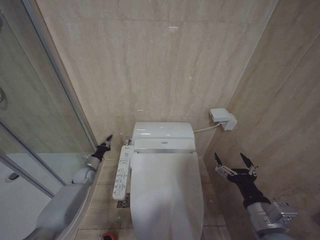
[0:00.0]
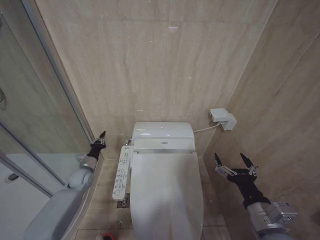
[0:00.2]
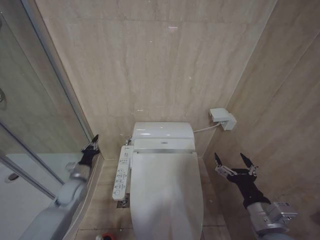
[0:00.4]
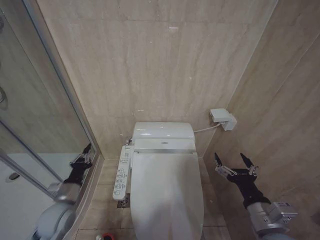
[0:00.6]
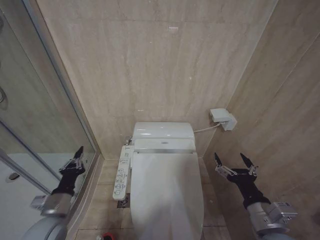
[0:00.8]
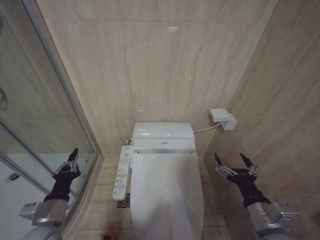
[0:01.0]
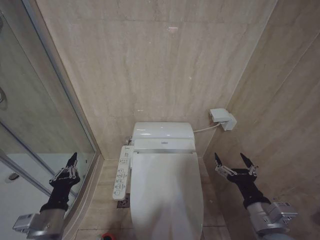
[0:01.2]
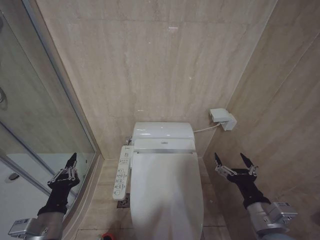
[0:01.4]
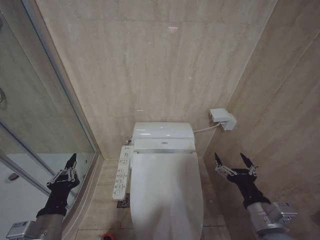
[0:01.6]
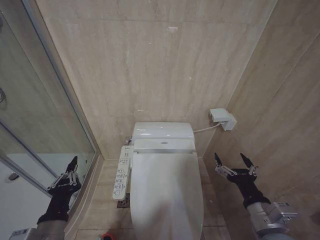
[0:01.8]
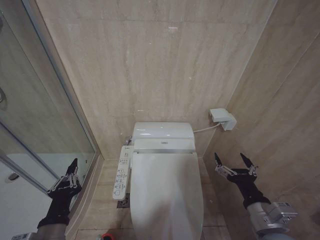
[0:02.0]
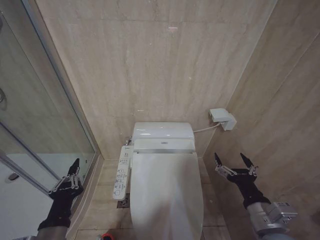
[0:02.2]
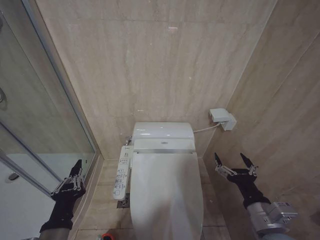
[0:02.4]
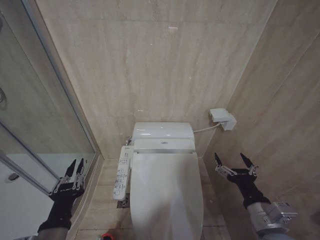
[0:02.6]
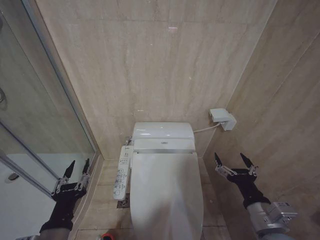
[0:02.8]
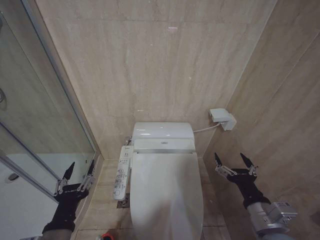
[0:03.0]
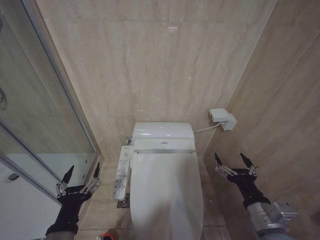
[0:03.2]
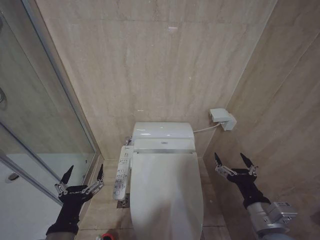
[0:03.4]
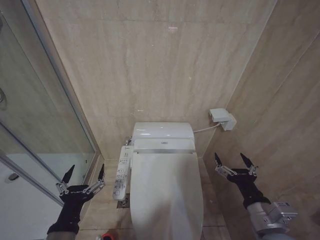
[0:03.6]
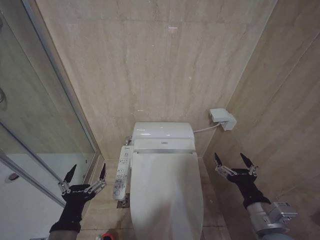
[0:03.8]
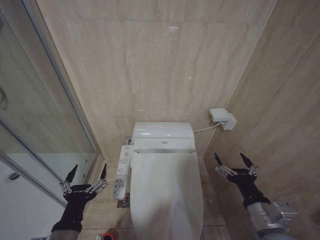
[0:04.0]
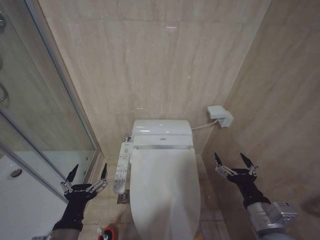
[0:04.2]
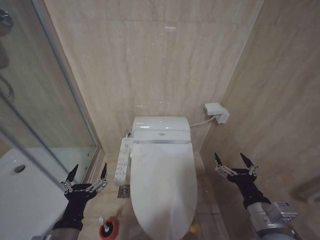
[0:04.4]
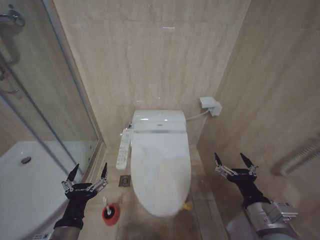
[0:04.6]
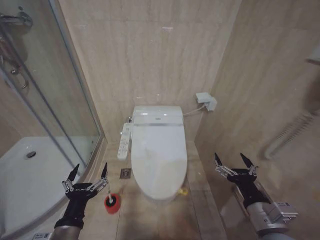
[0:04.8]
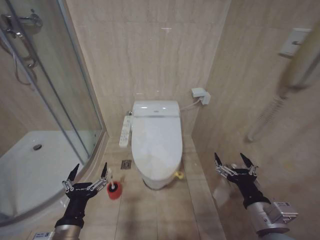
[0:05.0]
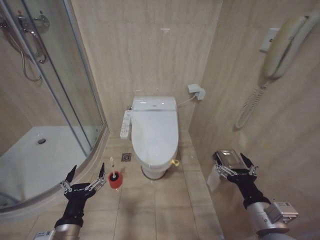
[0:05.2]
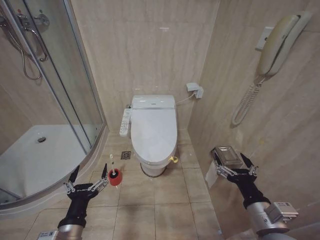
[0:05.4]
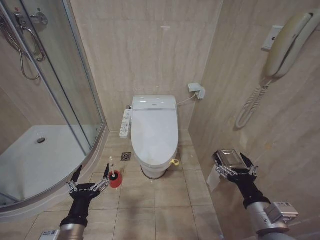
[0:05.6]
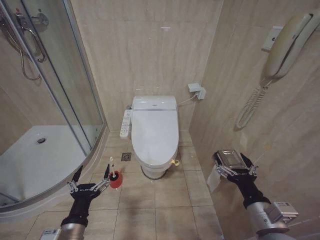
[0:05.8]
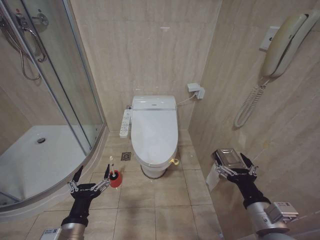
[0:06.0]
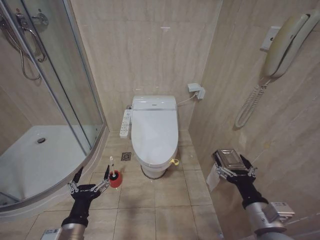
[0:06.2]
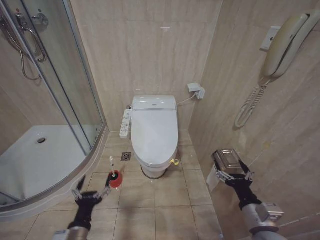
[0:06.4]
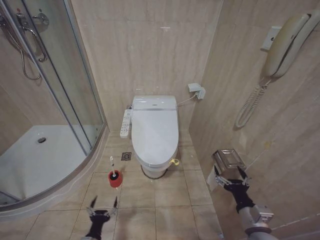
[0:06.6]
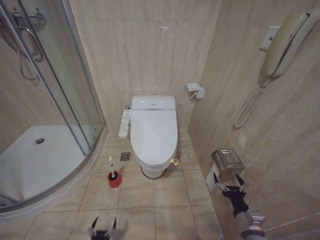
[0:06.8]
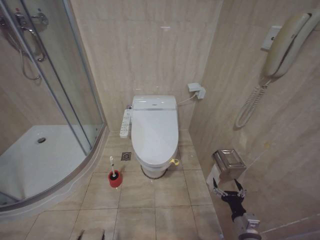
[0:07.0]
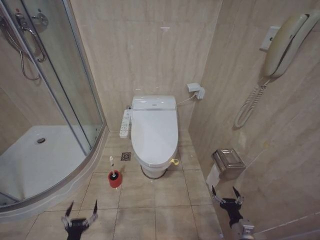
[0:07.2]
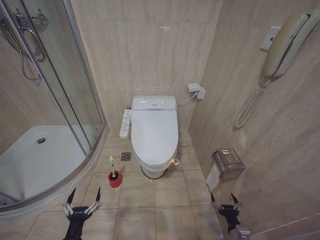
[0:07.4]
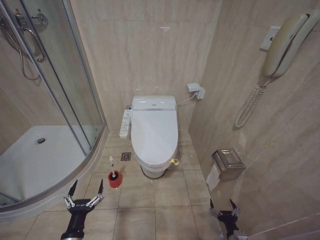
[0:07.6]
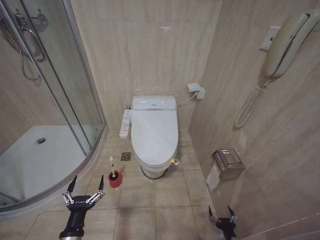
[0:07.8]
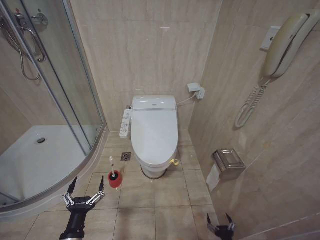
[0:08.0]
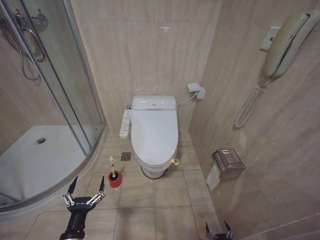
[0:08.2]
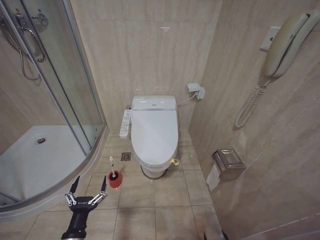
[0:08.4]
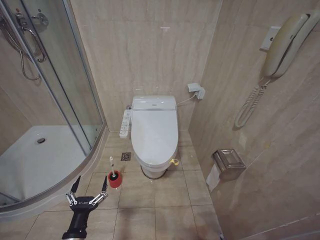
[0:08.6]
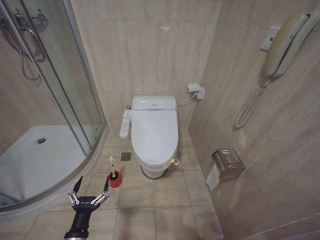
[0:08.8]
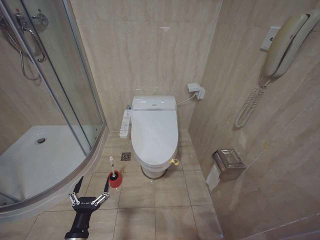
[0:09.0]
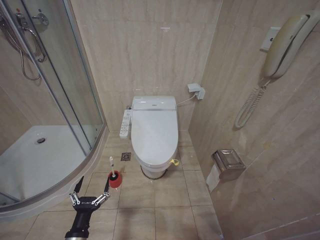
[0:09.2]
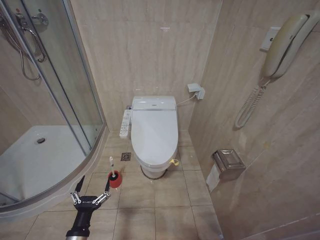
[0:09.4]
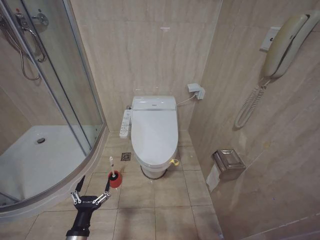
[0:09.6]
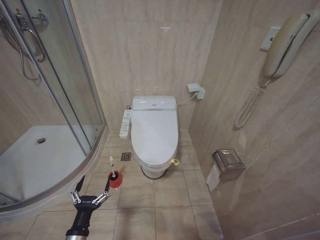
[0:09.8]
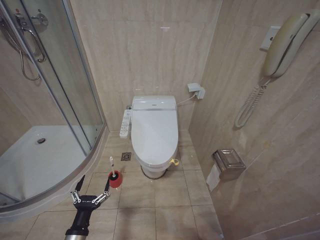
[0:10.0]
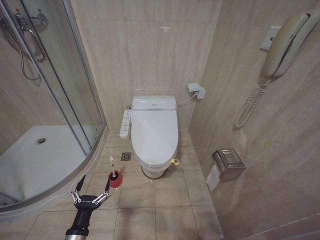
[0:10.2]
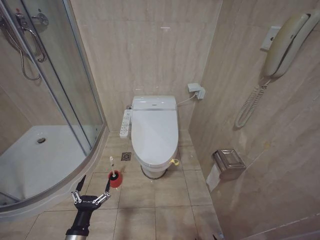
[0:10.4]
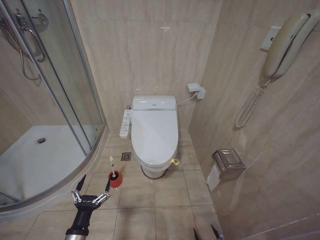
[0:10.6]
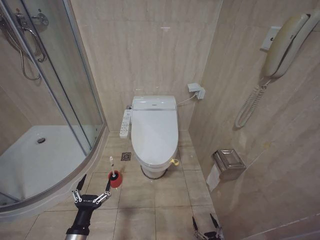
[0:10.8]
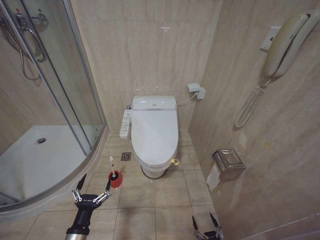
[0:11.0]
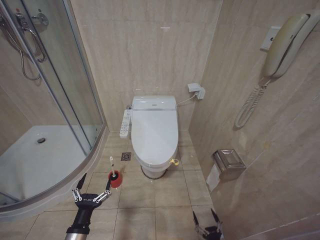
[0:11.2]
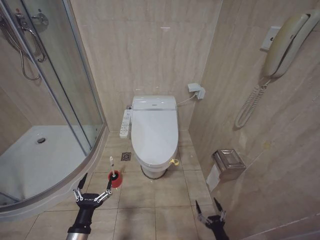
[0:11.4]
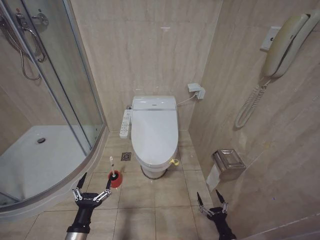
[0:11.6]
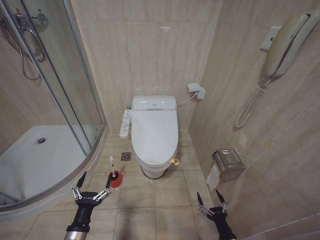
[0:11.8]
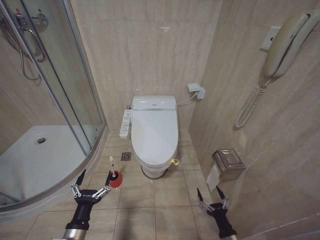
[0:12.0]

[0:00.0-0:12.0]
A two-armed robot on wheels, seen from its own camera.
Task of the whole recording: Open the toilet lid, clean the toilet bowl with a toilet brush, close the toilet lid, and flush.
0:00.0 to 0:01.6: The left gripper goes approximately 40 cm backward and upward.
0:01.6 to 0:03.0: The left gripper moves approximately 5 cm, and opens.
0:03.0 to 0:04.4: The left gripper opens up.
0:06.0 to 0:07.6: The left gripper goes about 15 cm downward, while the right gripper moves downward, roughly 30 cm.
0:07.6 to 0:09.0: The left gripper changes place by approximately 5 cm. The right gripper goes about 25 cm downward and backward.
0:10.4 to 0:12.0: The right gripper travels upward and forward by approximately 20 cm.

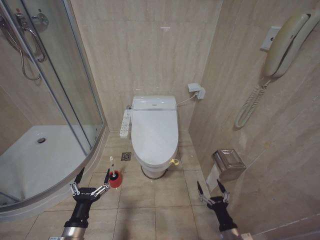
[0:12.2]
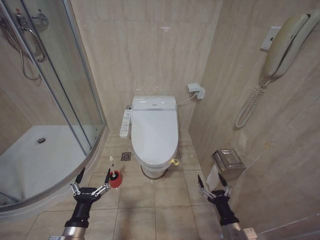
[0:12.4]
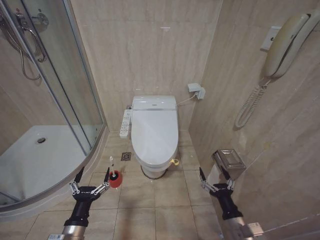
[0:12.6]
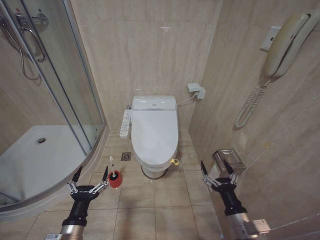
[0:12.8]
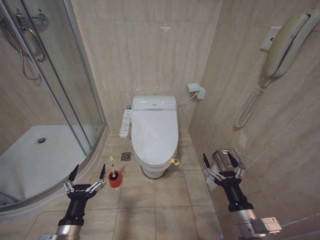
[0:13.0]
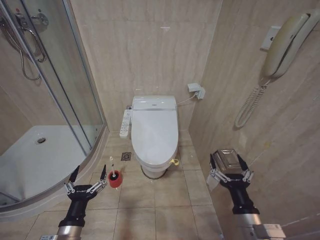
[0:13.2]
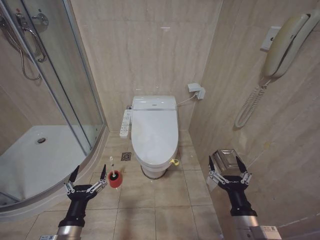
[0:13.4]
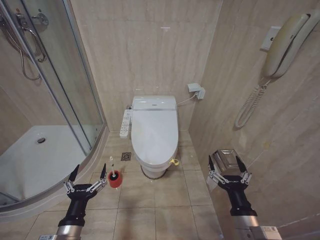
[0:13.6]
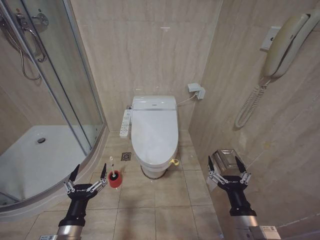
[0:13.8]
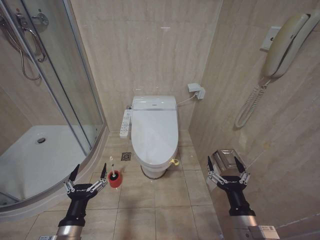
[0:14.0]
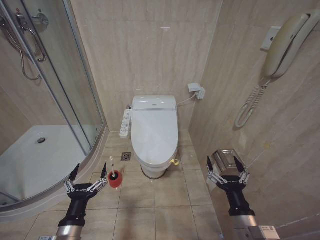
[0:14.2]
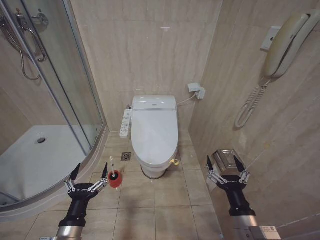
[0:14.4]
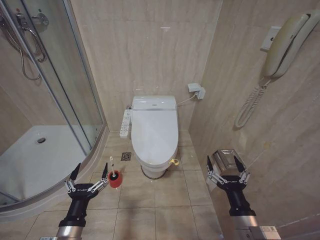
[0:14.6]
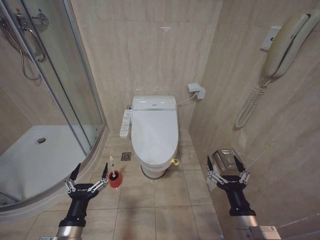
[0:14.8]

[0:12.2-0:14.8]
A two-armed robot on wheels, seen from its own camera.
Task of the whole recording: Open the toilet lid, clean the toilet bowl with a toilet brush, close the toilet lid, and flush.
0:12.2 to 0:13.4: The right gripper heads upward, covering about 20 cm.
0:13.4 to 0:14.8: Neither gripper changes place.

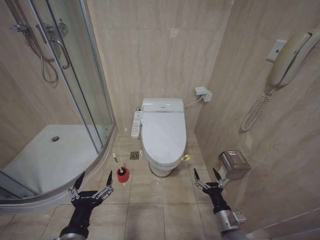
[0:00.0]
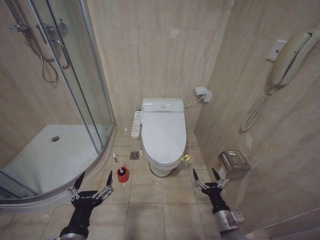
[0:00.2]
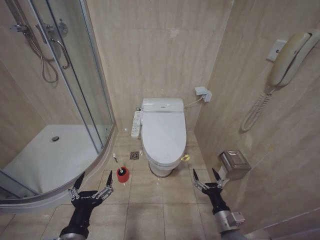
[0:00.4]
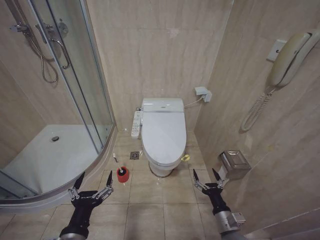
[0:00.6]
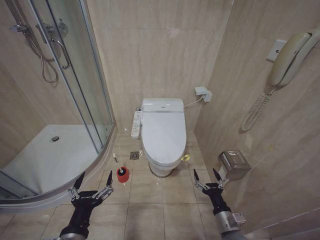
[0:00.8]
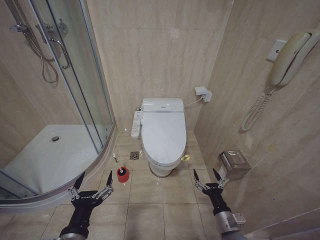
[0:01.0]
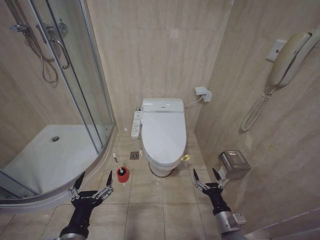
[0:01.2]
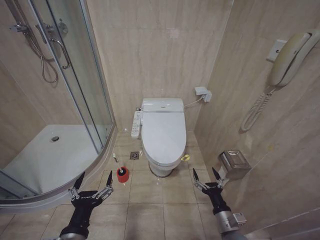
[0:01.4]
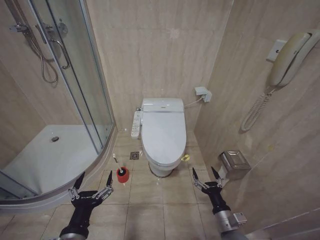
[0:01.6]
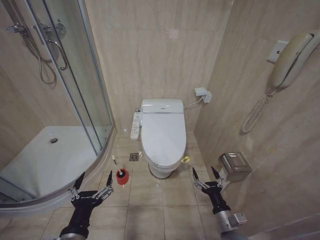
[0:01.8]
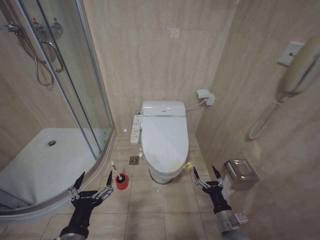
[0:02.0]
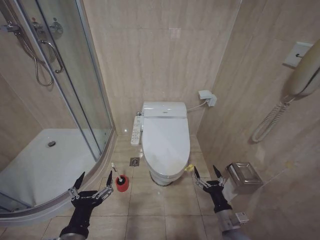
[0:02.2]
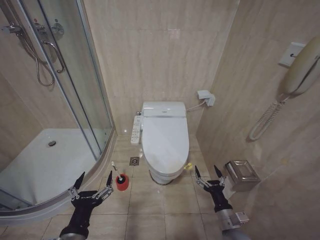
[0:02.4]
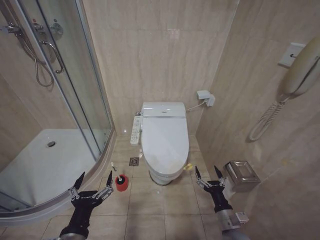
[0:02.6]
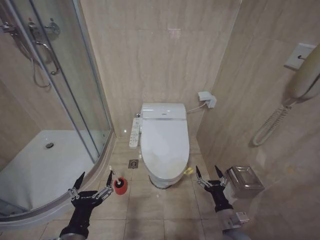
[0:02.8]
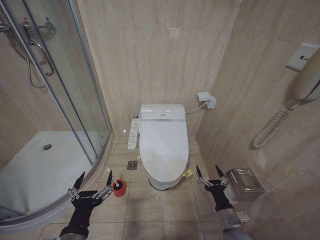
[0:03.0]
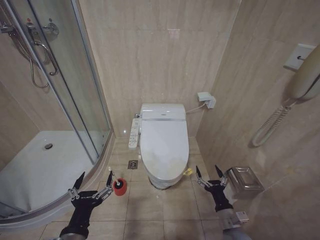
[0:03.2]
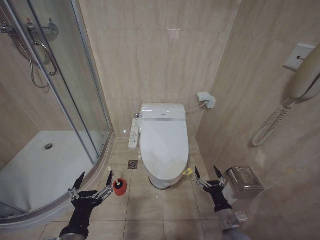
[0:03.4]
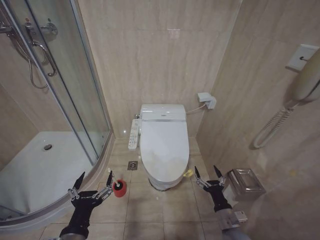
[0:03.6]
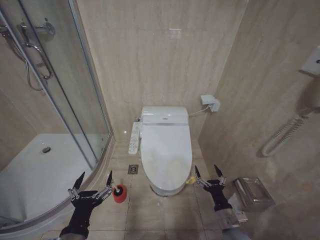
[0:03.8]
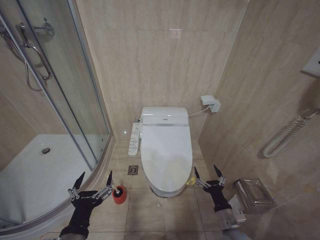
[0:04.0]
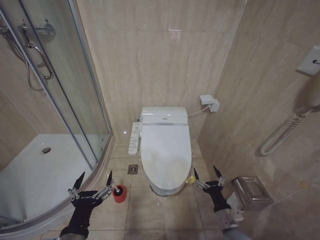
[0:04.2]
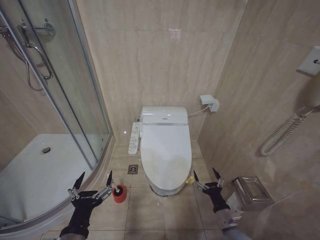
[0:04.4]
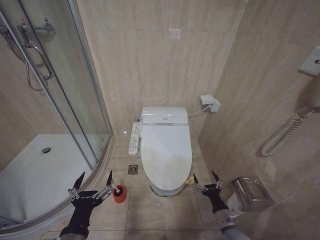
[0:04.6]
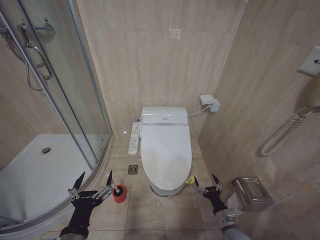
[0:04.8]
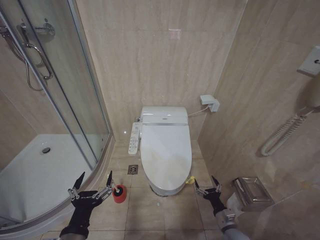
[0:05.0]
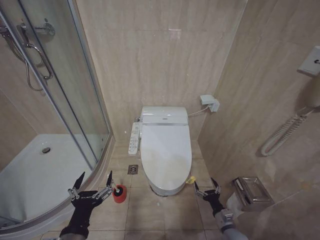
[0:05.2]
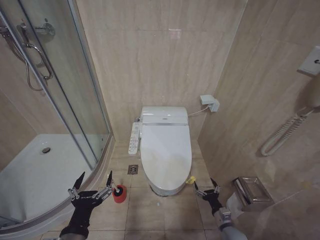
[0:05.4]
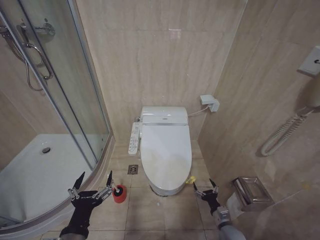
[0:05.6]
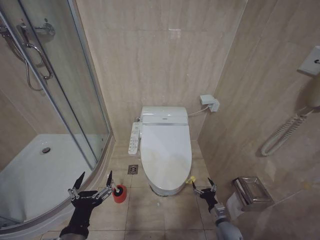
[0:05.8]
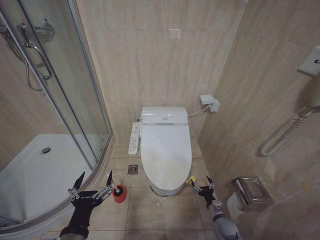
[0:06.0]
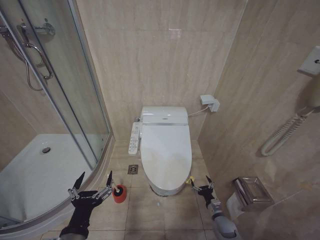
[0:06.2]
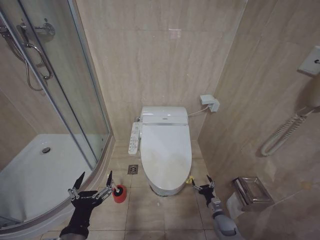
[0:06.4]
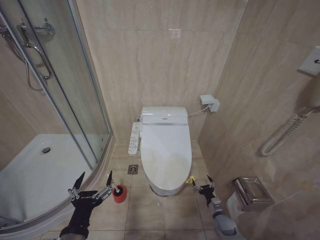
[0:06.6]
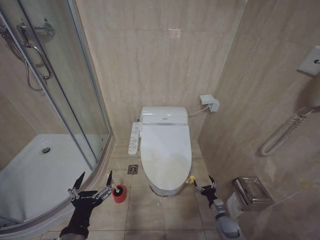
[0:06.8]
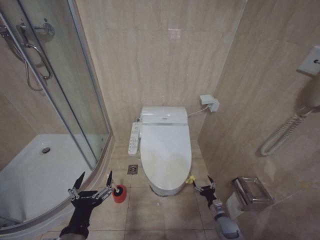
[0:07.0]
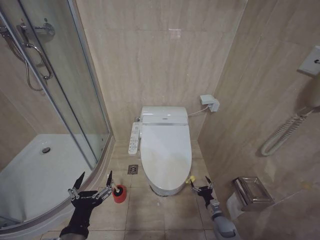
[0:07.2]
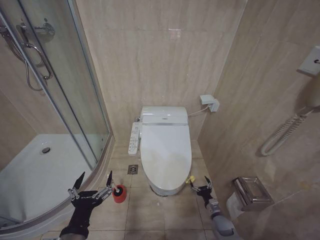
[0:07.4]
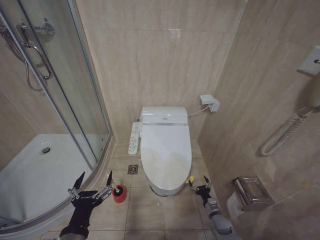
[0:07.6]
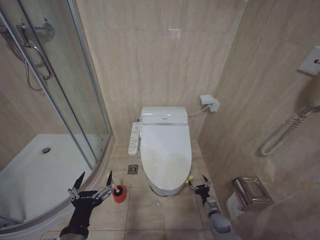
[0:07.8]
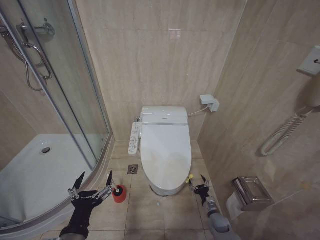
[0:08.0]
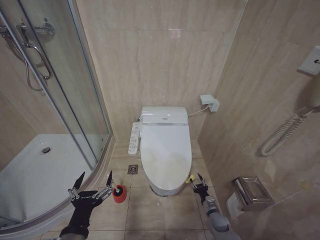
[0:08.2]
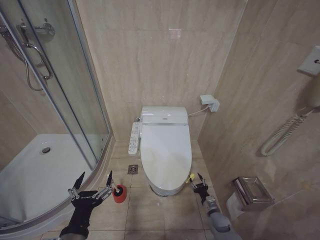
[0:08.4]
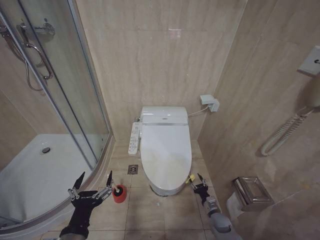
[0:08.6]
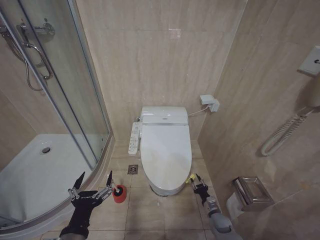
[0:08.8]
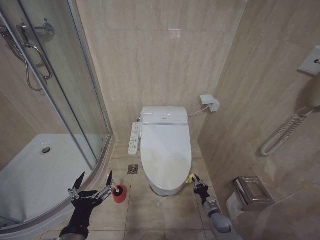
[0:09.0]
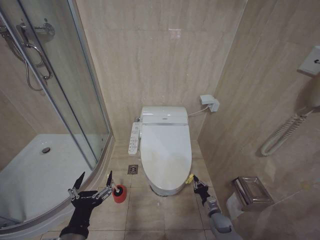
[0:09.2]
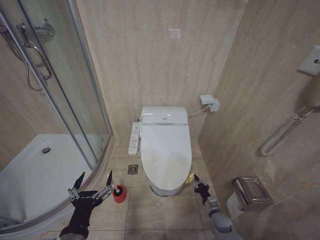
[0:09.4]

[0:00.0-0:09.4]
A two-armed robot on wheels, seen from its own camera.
Task of the whole recording: Open the toilet lid, clean the toilet bowl with a toilet brush, close the toilet lid, and flush.
0:01.6 to 0:03.2: The two grippers keep their place.
0:03.2 to 0:04.8: The right gripper is displaced downward by roughly 5 cm.
0:04.8 to 0:06.2: The right gripper shifts about 10 cm downward and forward.
